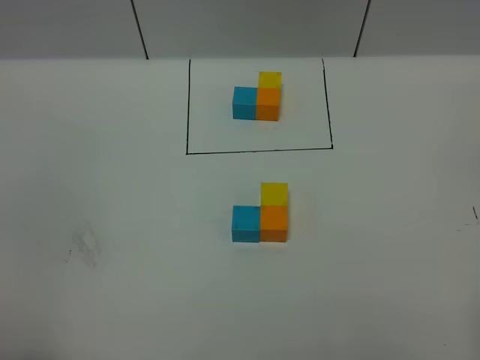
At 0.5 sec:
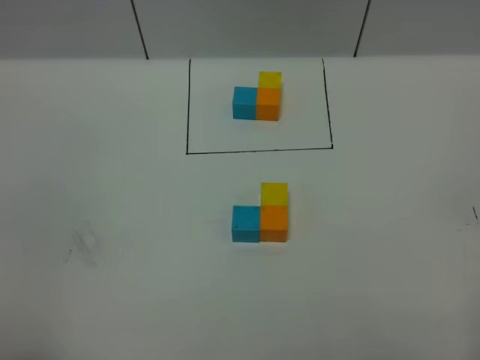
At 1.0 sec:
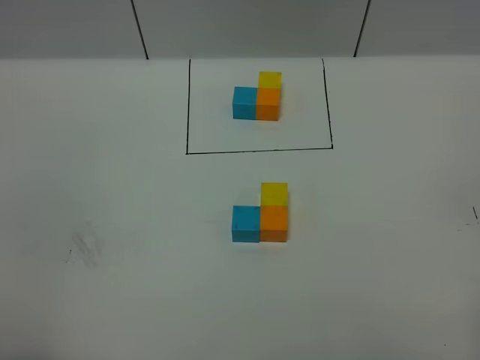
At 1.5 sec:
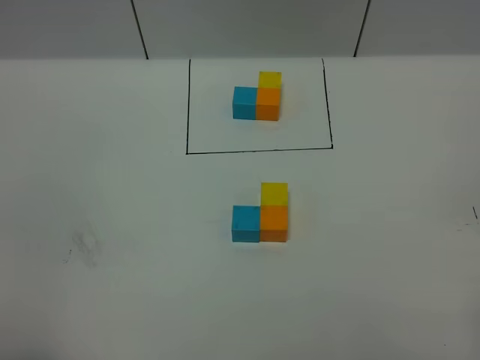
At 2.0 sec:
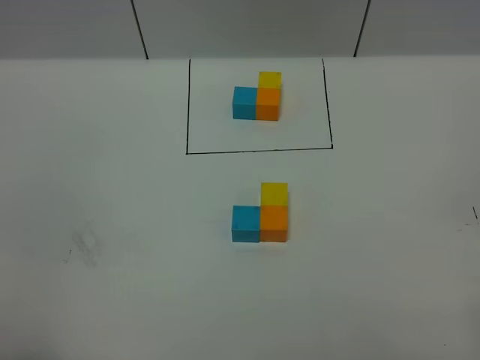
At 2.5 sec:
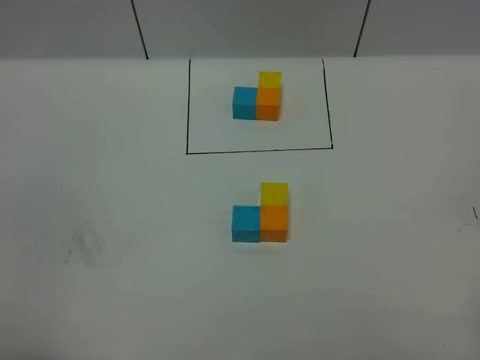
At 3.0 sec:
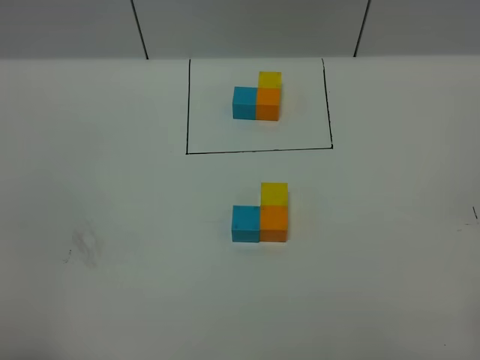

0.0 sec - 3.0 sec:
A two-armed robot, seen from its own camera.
Task of the whole recording: According to the building block template in front, assemble the scattered blocks together.
1.5 sec - 3.0 sec: Neither gripper changes place.
